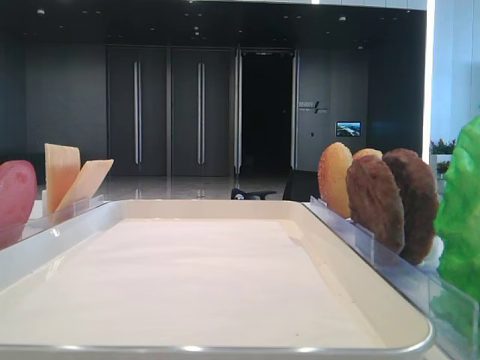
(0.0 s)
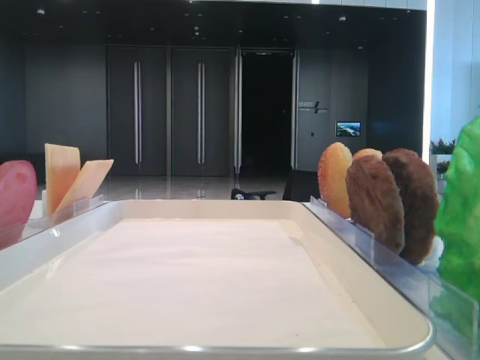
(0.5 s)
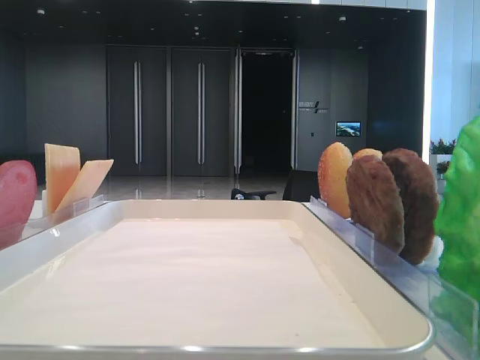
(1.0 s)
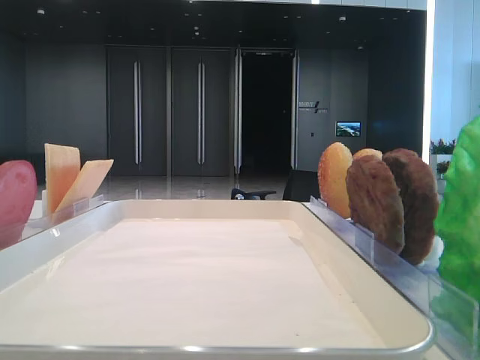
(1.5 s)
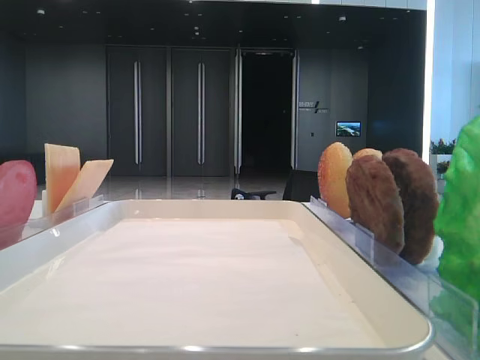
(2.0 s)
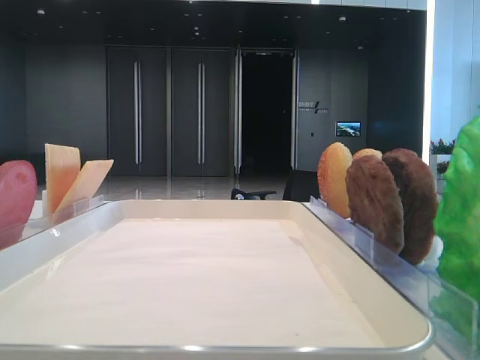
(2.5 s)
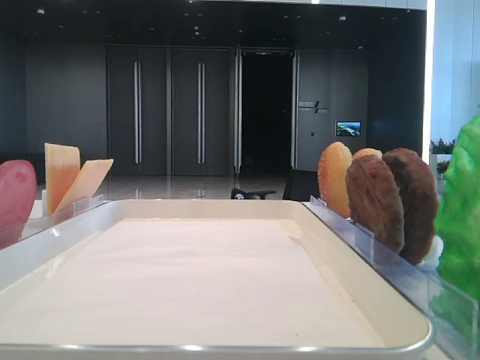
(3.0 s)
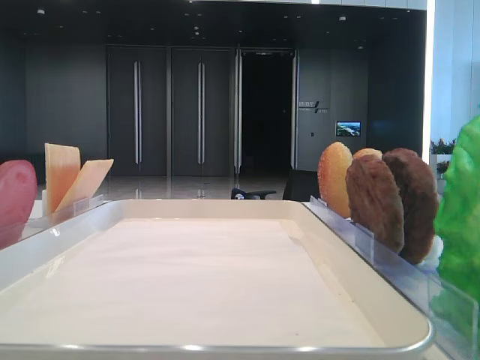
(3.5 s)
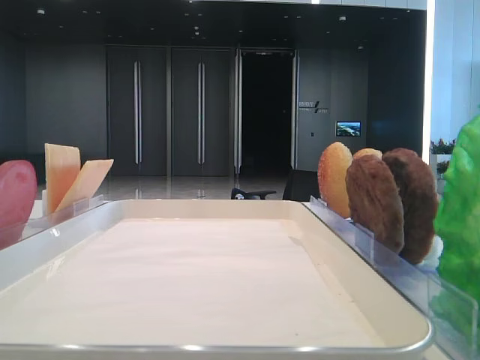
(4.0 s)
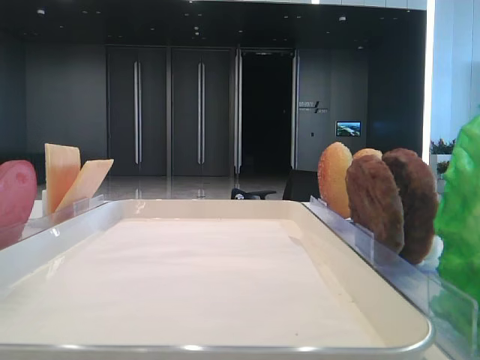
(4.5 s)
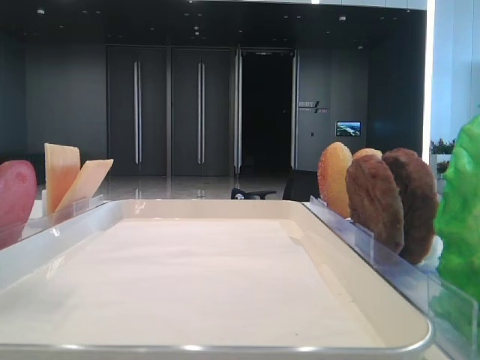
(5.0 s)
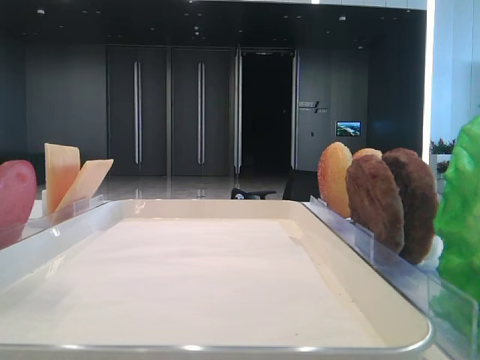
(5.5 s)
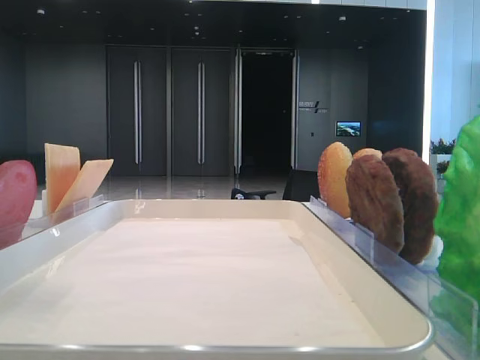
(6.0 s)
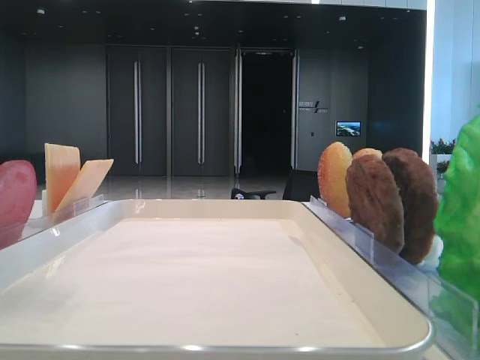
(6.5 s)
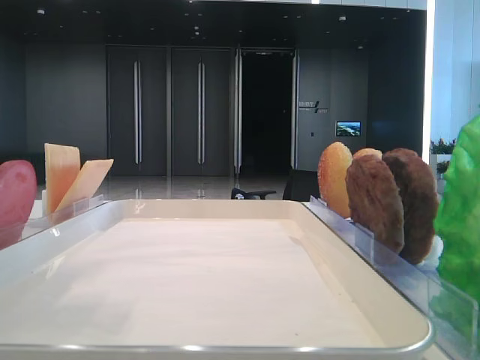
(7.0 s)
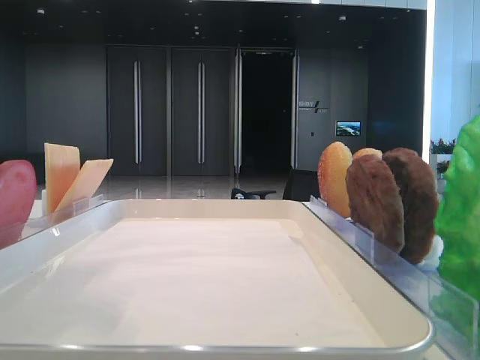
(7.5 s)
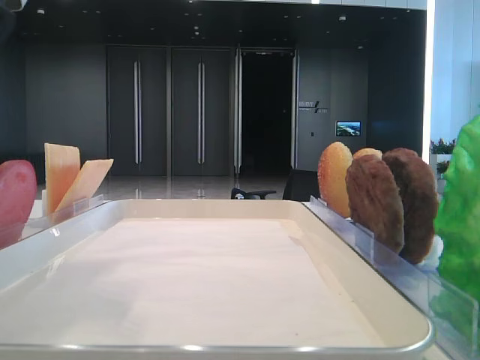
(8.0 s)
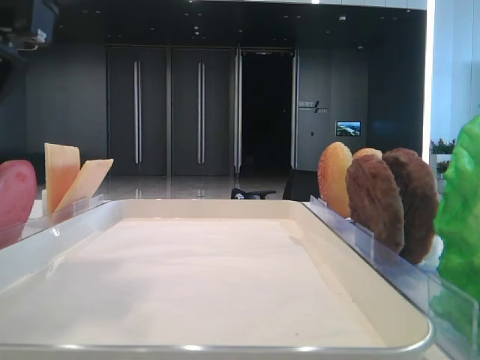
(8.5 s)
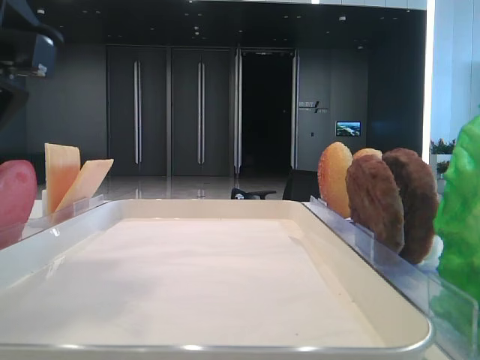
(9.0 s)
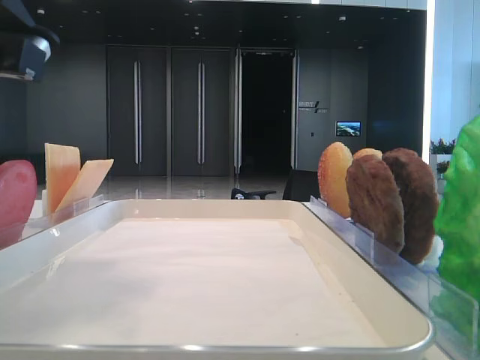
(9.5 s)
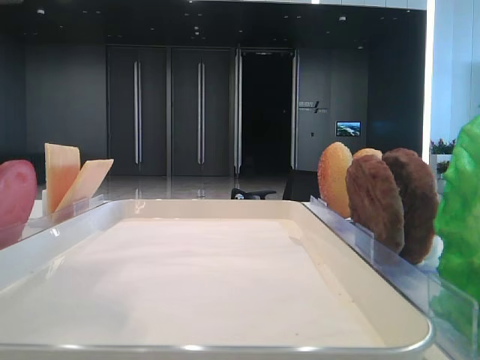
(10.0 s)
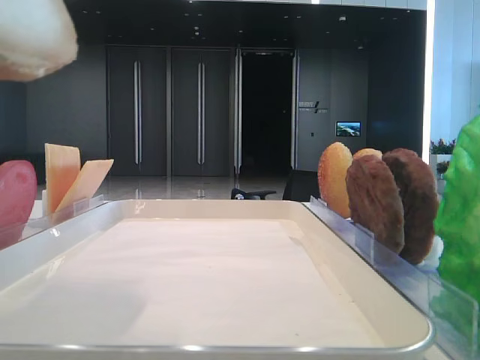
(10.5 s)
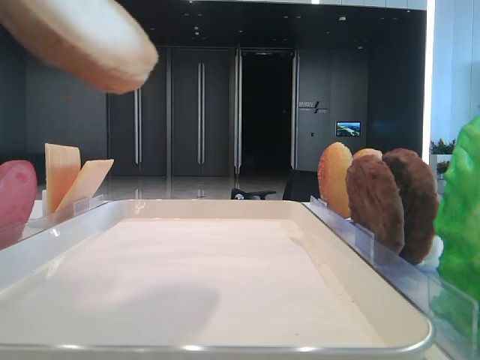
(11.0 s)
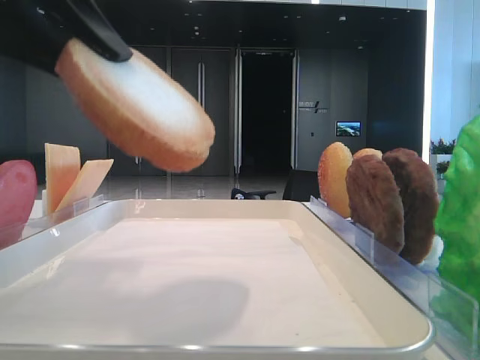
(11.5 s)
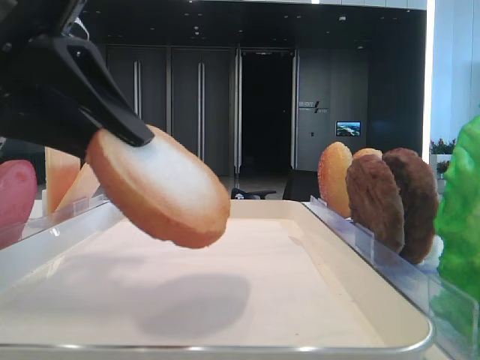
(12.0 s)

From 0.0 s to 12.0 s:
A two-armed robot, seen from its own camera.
From 6.0 s to 8.0 s: The left gripper is displaced to the right and downward by approximately 10 cm.
From 10.0 s to 12.0 s: The left gripper moves downward, roughly 10 cm.

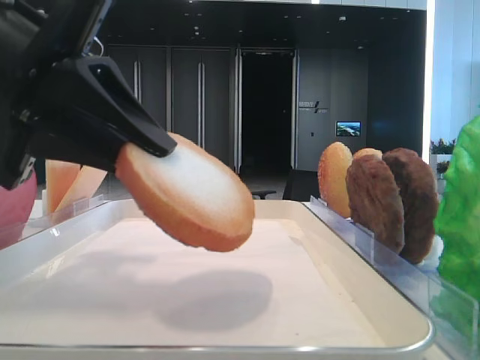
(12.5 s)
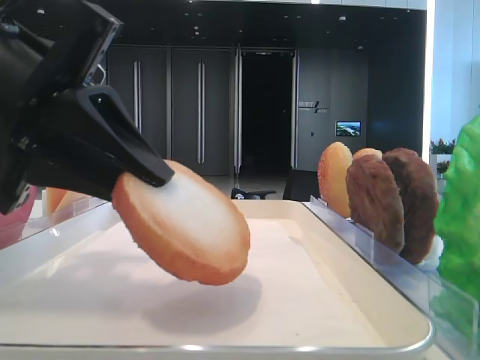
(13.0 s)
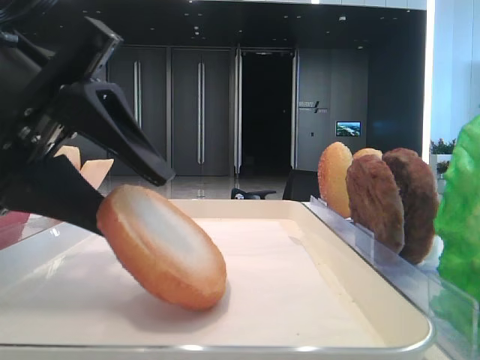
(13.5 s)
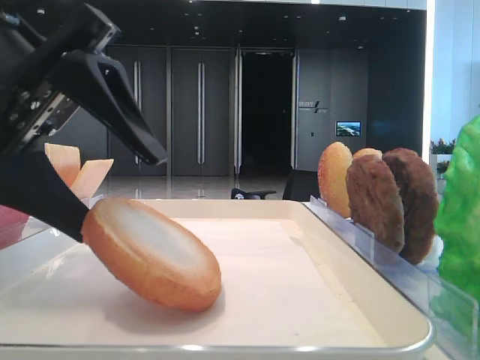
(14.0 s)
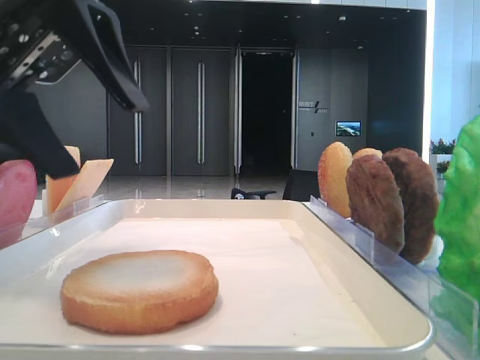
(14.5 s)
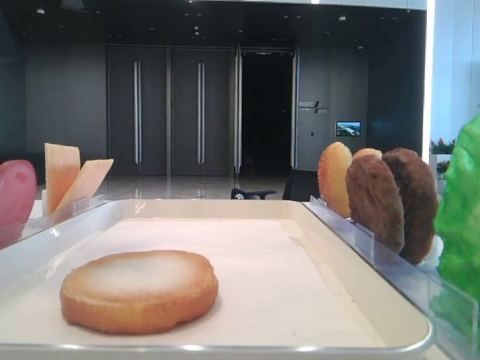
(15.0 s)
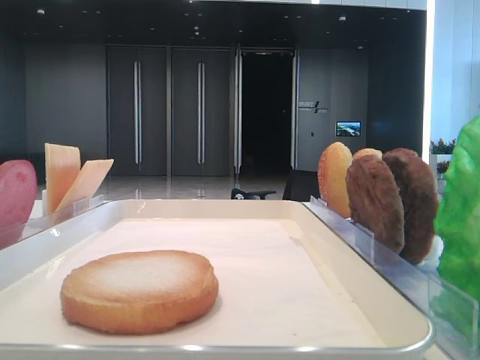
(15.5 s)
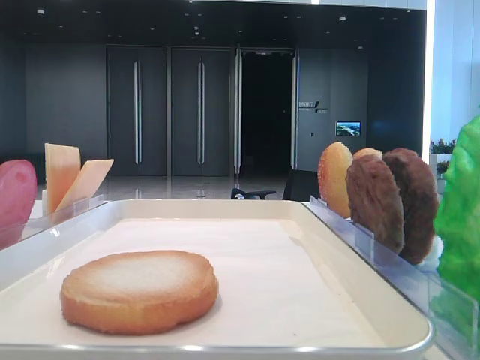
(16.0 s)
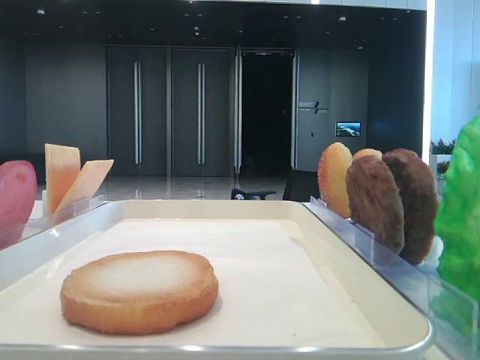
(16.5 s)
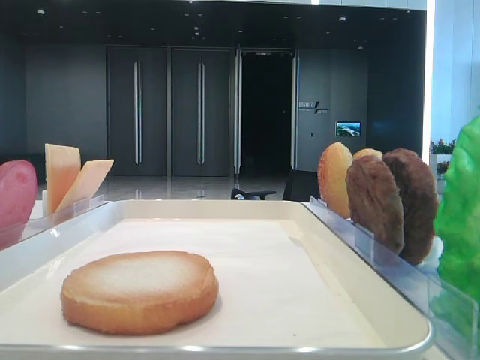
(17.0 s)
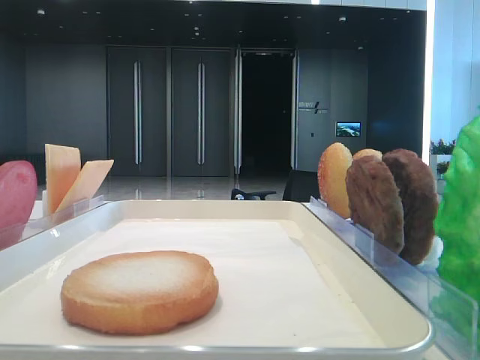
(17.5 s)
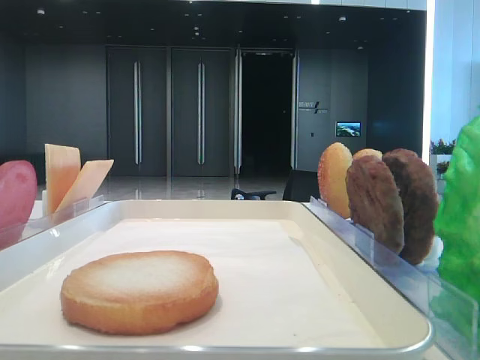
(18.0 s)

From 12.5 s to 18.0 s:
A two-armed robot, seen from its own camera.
From 12.5 s to 14.5 s: The left gripper moves upward, some 5 cm, and opens.
From 14.5 s to 16.0 s: The left gripper moves to the left, backward and upward, some 20 cm.

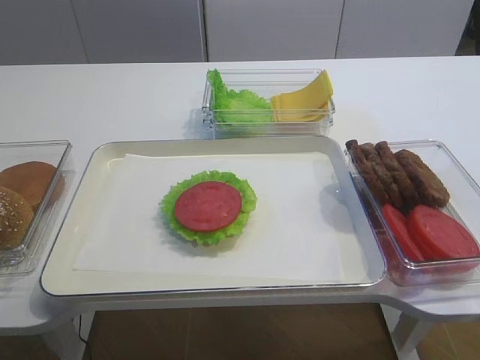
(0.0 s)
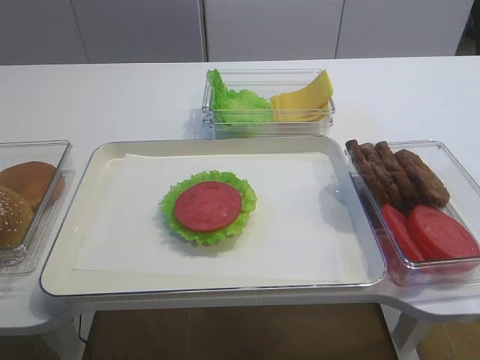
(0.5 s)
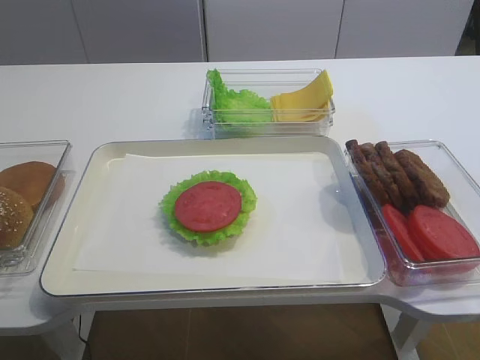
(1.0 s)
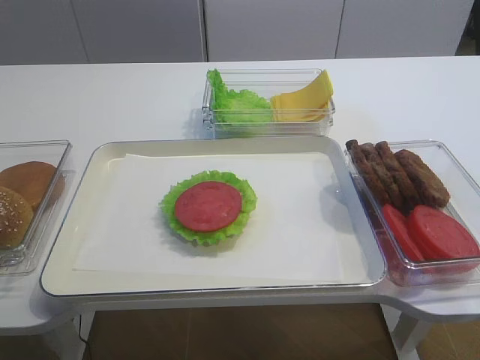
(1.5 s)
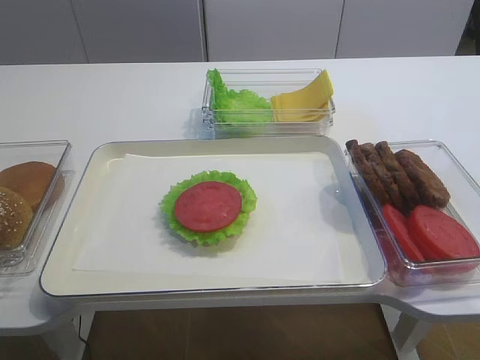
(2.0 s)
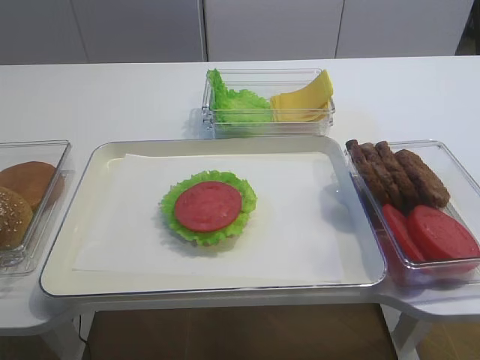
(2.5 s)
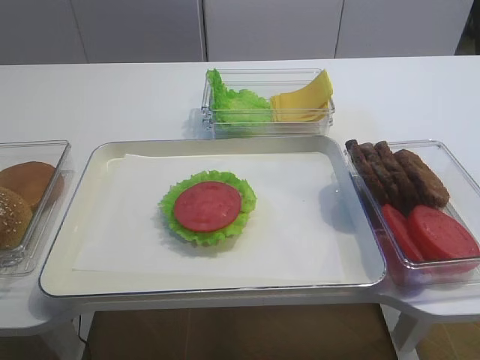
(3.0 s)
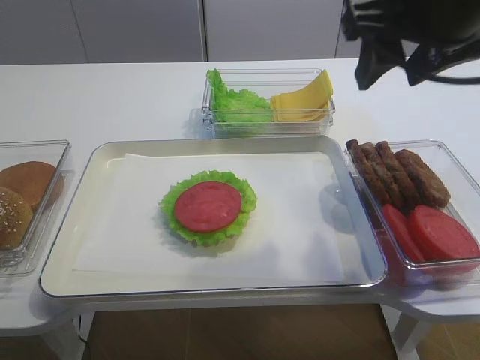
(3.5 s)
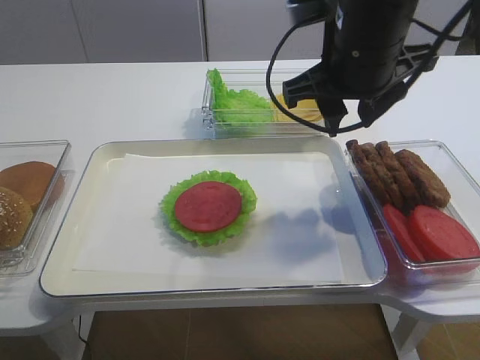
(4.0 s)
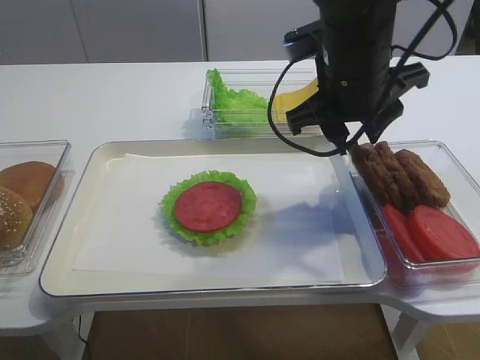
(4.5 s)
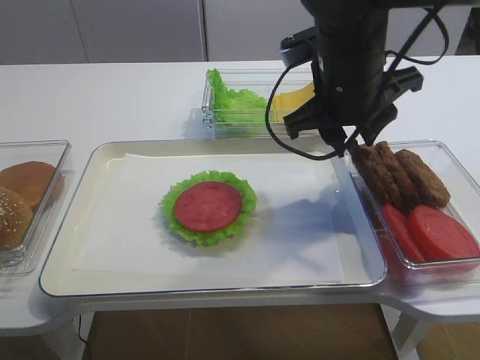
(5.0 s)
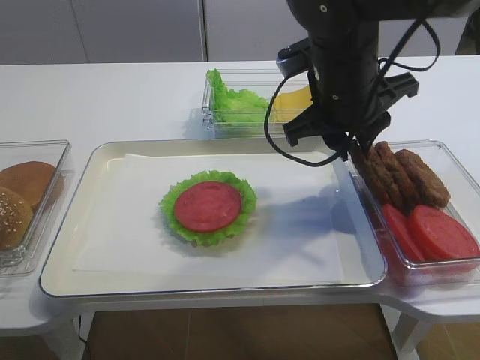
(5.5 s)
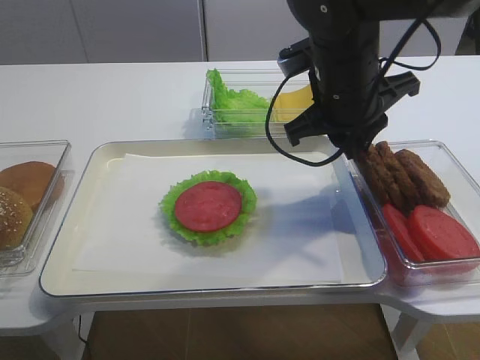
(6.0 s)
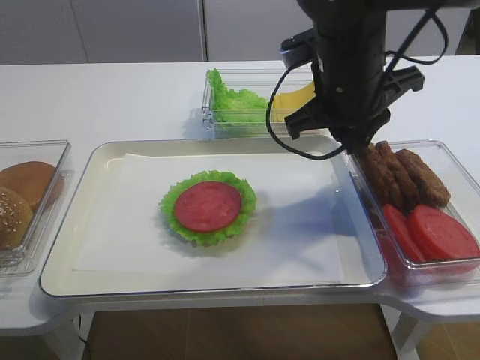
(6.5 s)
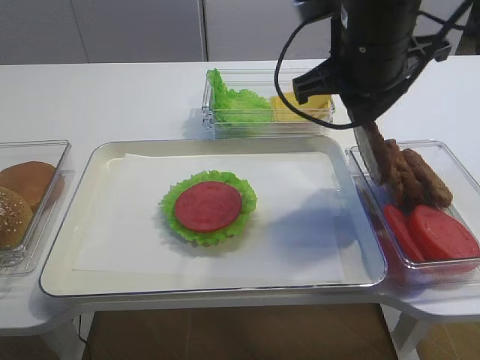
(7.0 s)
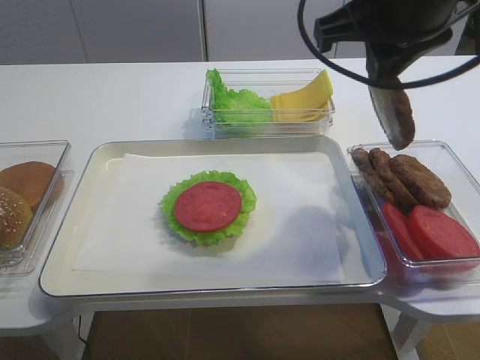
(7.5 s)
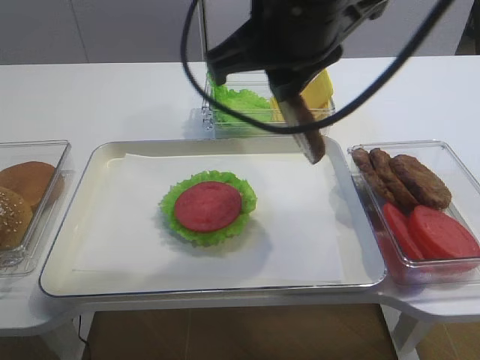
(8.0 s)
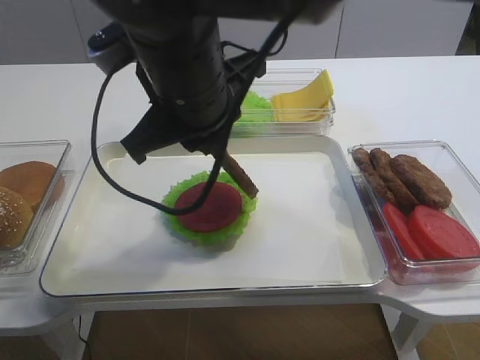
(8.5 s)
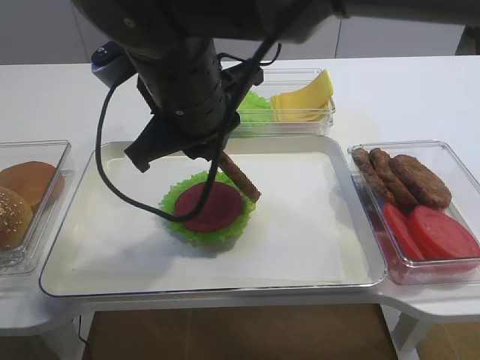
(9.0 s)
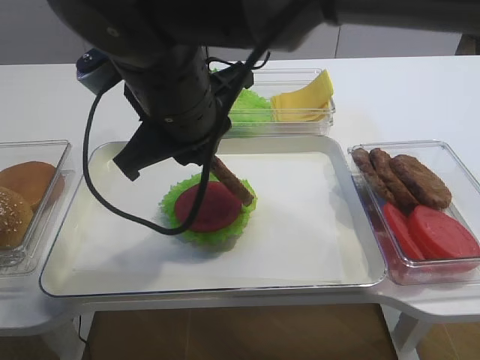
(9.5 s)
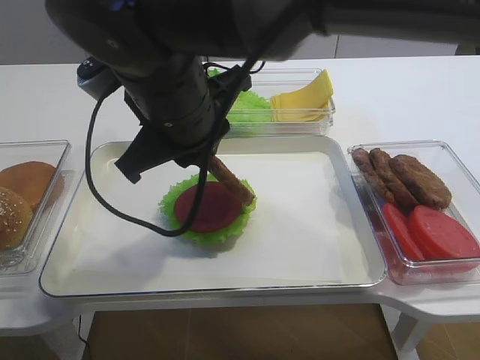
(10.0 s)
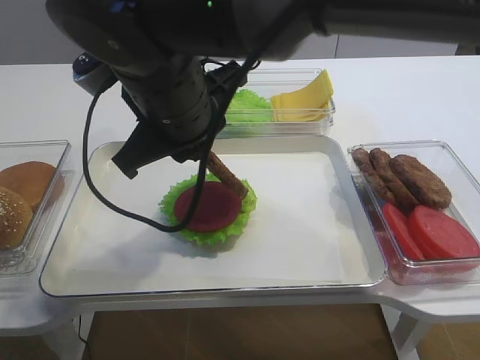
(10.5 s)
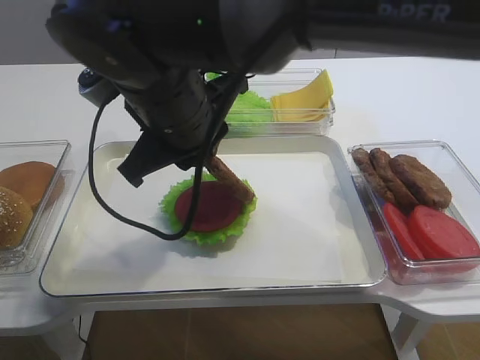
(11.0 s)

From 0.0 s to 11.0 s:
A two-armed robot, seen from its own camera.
Step, from 0.0 s to 6.5 s: Pick up the cutlet with the right gripper.
From 2.0 s to 3.5 s: The right gripper shifts about 25 cm forward.
From 3.5 s to 5.5 s: The right gripper shifts roughly 15 cm downward, forward and to the left, and closes up.
From 5.5 s to 7.5 s: The right gripper moves upward and backward, some 15 cm.
From 7.5 s to 9.0 s: The right gripper travels to the left and downward by about 20 cm.
From 9.0 s to 11.0 s: The grippers stay close to where they were, moving slightly.
